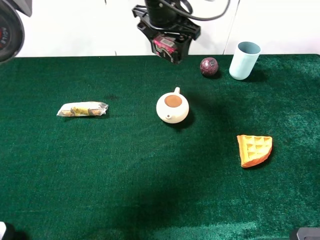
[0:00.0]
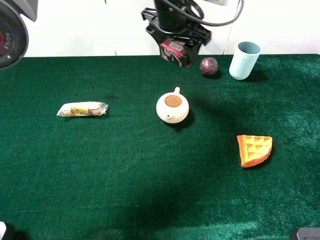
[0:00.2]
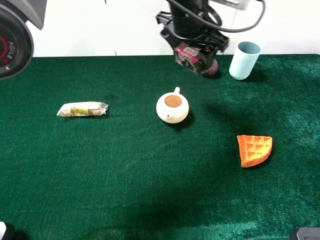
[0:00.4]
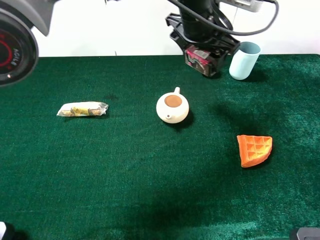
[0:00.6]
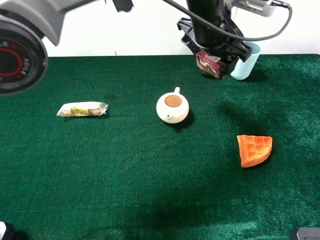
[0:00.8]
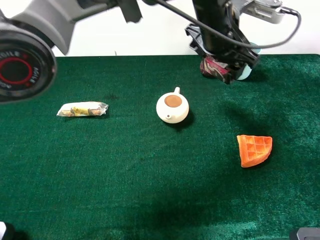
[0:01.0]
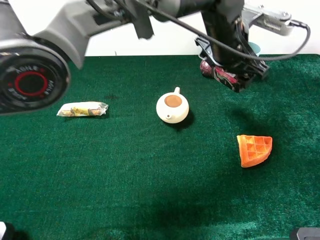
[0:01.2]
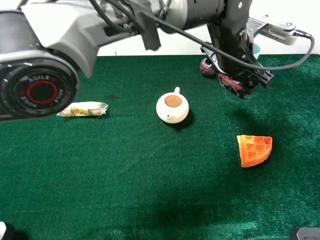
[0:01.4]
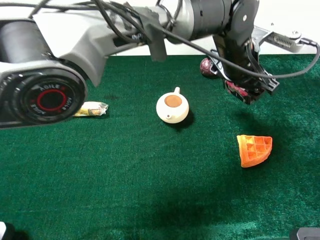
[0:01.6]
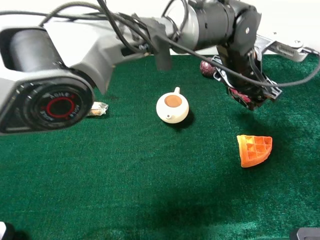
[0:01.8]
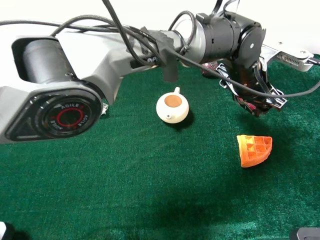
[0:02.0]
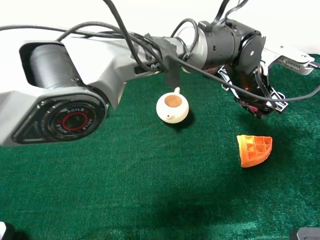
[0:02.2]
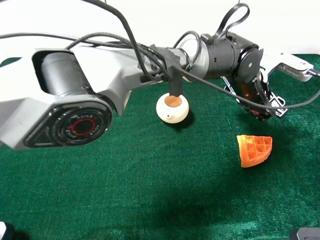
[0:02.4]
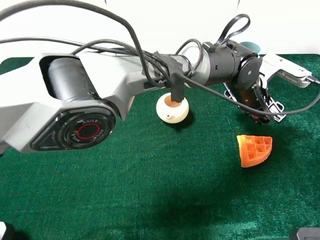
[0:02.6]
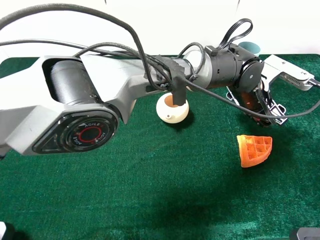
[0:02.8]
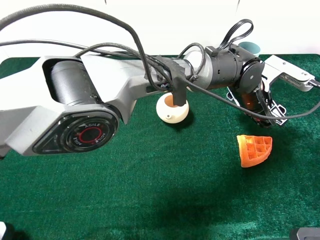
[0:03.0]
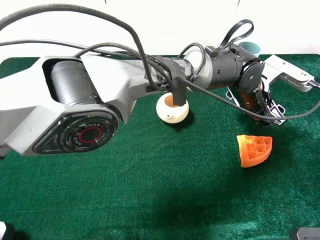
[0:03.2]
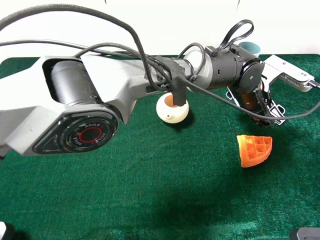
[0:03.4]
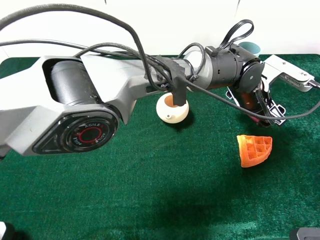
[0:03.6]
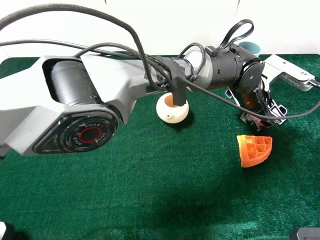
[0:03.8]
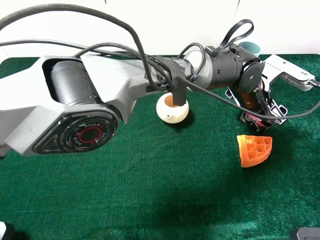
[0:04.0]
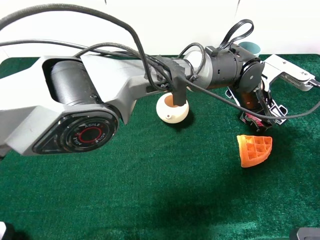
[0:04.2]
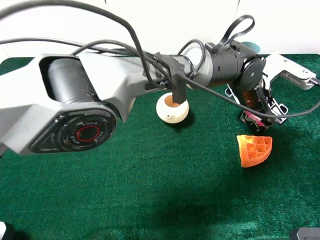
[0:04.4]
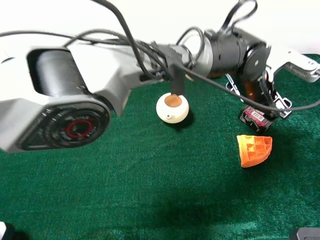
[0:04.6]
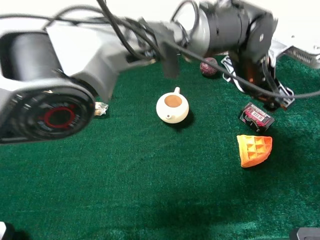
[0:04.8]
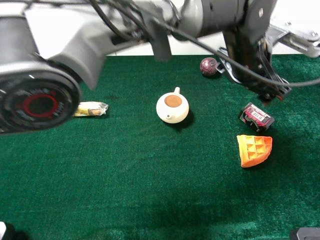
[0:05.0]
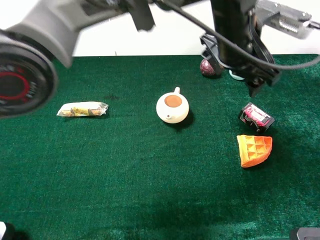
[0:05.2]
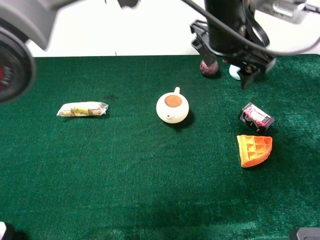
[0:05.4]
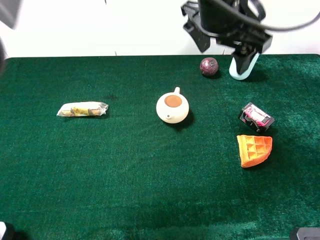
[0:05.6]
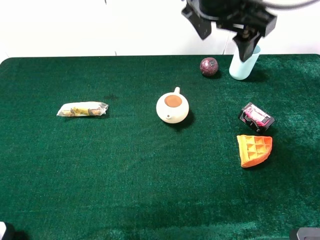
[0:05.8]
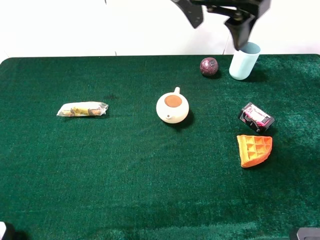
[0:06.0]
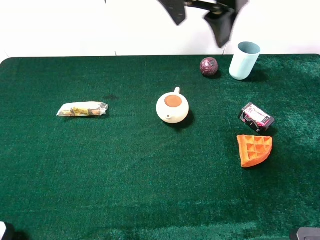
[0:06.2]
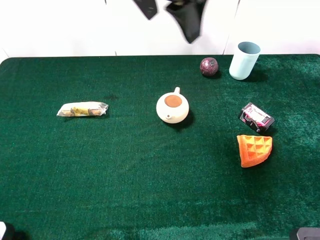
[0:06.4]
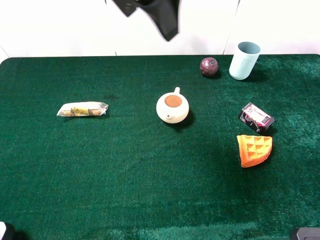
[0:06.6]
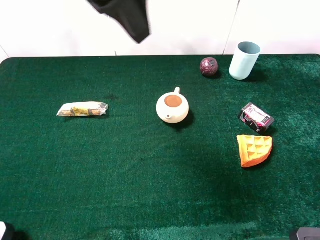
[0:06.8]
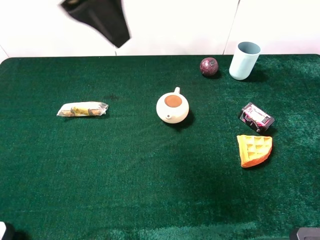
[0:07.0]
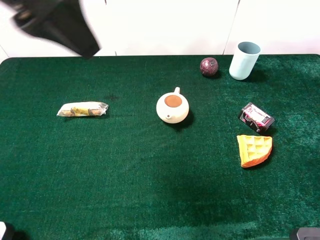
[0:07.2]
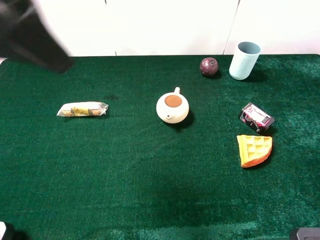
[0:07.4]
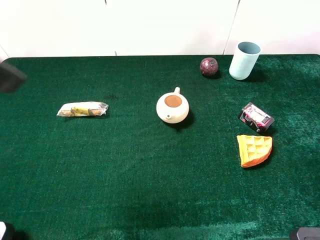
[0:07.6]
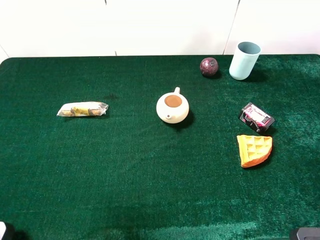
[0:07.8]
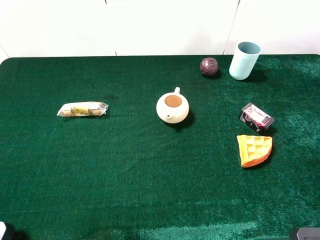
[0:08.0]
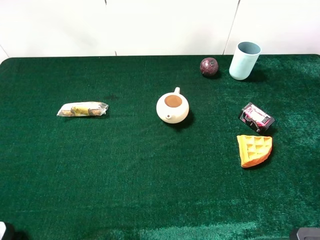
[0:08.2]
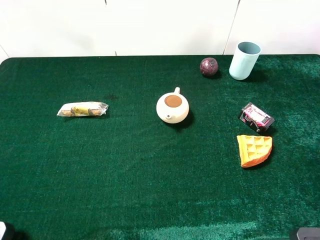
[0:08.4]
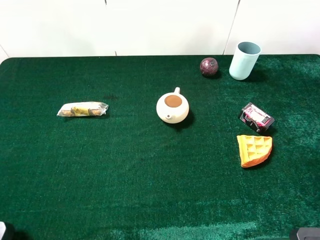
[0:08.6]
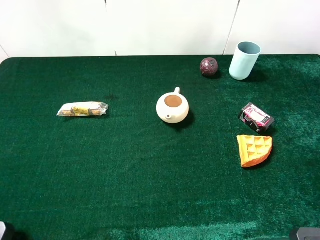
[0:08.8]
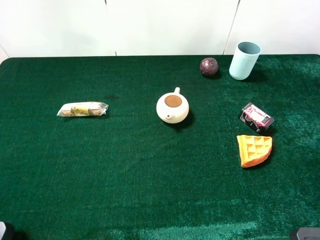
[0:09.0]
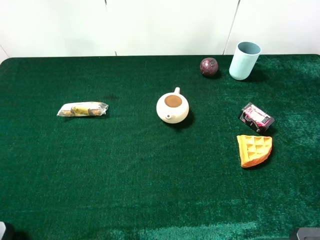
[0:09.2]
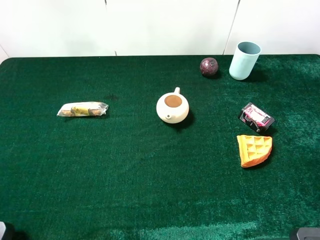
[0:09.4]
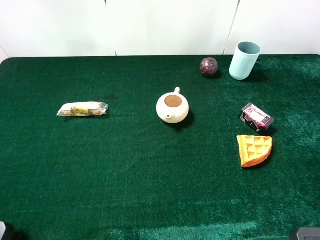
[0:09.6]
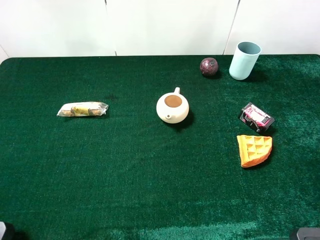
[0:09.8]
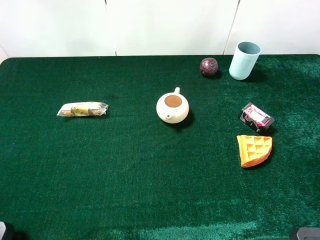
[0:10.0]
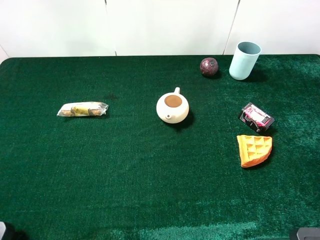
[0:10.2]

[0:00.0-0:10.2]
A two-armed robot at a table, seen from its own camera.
Task of the whole recording: the gripper move the object.
Step, 0:00.0 to 0:04.8: Place the hard facial cleanser on the table with the left gripper.
0:00.0 to 0:01.4: The left gripper is displaced to the right, backward and downward by some 15 cm.
0:01.4 to 0:03.0: The left gripper goes roughly 10 cm downward and to the right.
0:03.0 to 0:04.4: The left gripper opens.
0:04.4 to 0:05.8: The left gripper moves upward and to the left, about 20 cm.
0:05.8 to 0:07.2: The left gripper shifts approximately 25 cm to the left and backward.
0:07.2 to 0:08.8: The left gripper travels to the left and backward by some 25 cm.

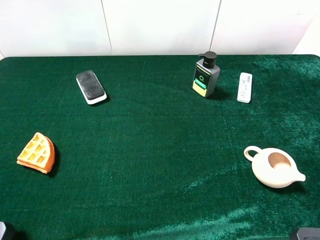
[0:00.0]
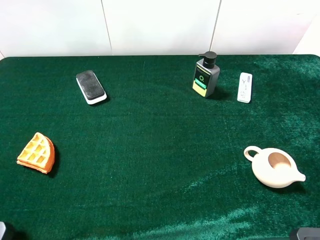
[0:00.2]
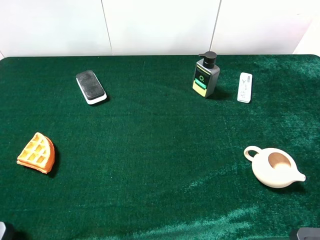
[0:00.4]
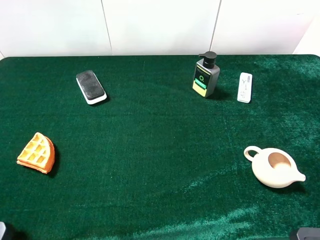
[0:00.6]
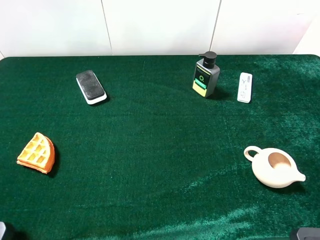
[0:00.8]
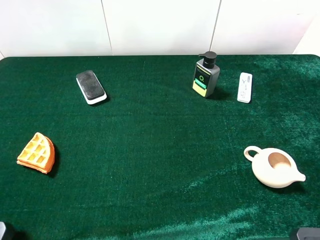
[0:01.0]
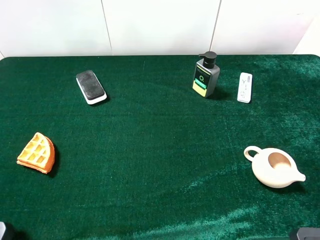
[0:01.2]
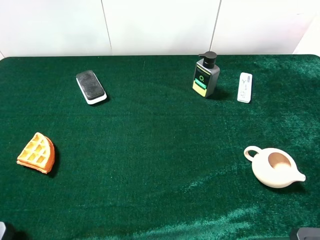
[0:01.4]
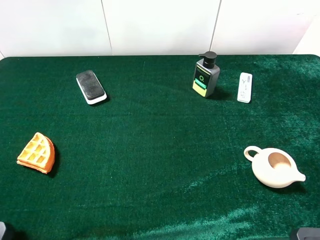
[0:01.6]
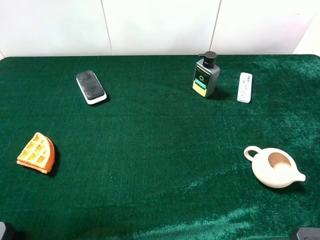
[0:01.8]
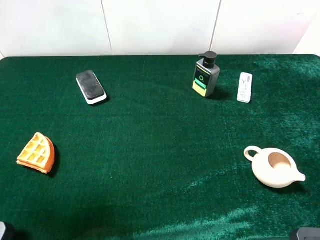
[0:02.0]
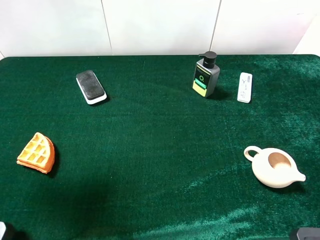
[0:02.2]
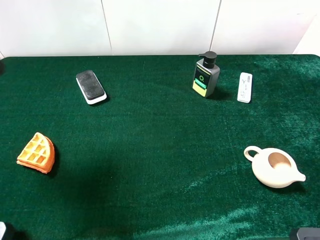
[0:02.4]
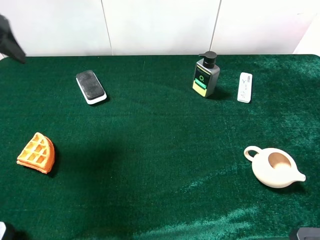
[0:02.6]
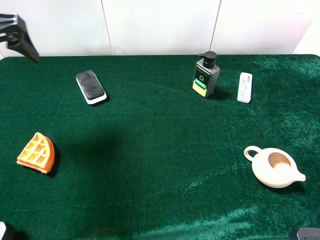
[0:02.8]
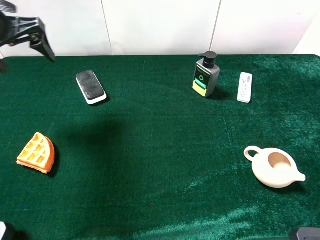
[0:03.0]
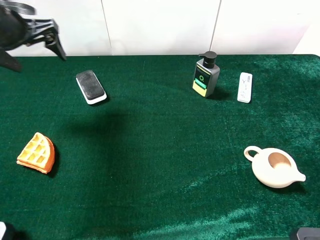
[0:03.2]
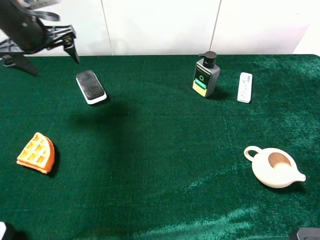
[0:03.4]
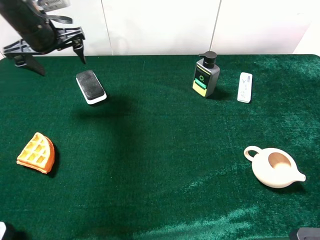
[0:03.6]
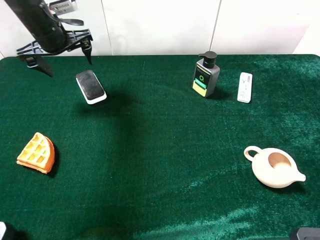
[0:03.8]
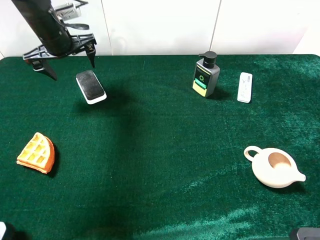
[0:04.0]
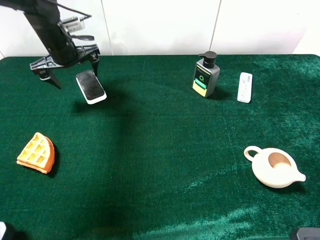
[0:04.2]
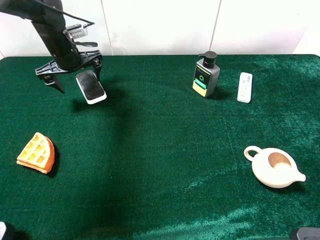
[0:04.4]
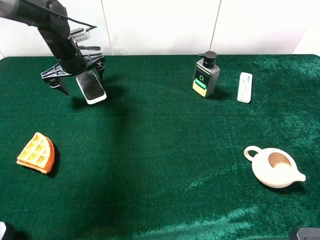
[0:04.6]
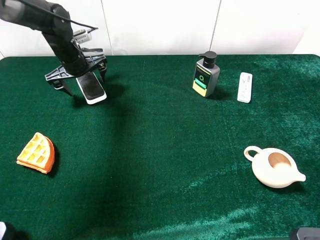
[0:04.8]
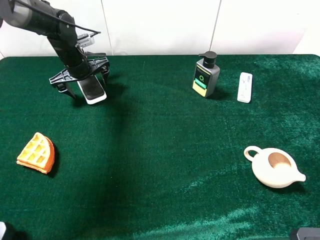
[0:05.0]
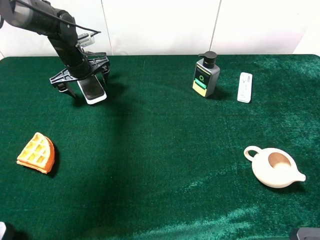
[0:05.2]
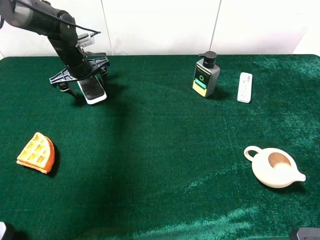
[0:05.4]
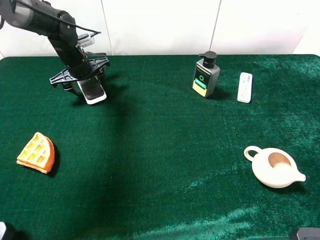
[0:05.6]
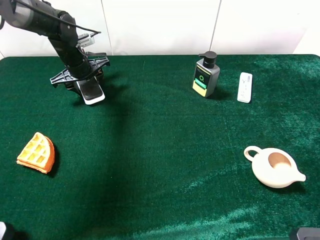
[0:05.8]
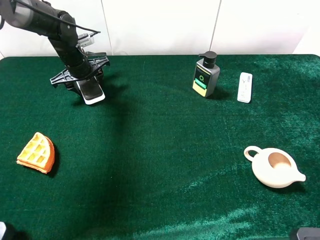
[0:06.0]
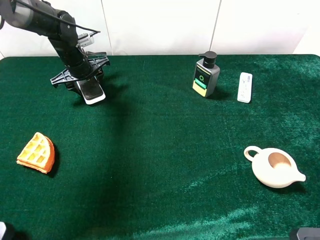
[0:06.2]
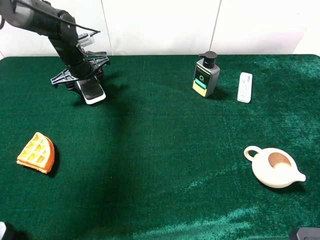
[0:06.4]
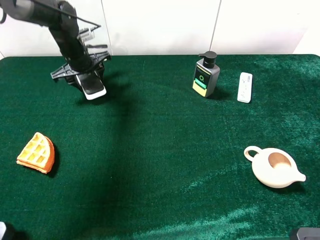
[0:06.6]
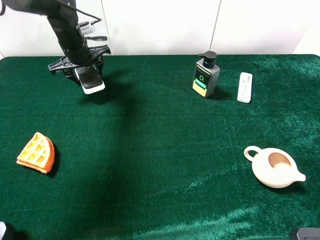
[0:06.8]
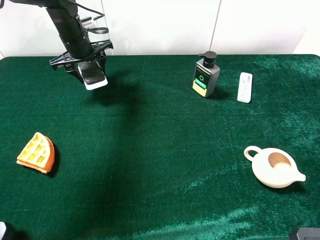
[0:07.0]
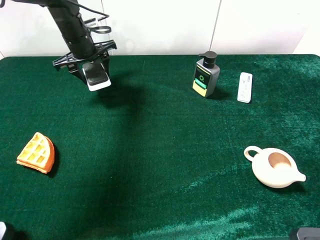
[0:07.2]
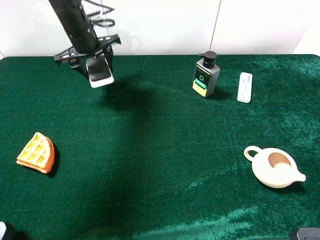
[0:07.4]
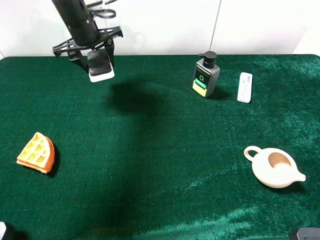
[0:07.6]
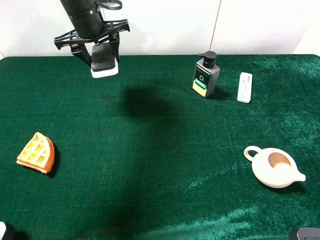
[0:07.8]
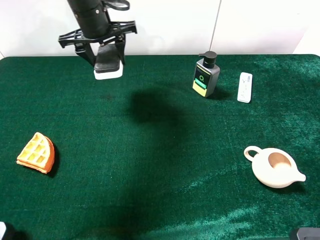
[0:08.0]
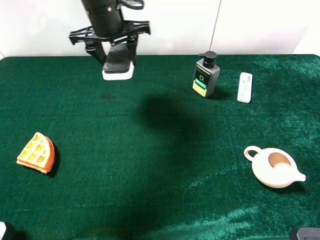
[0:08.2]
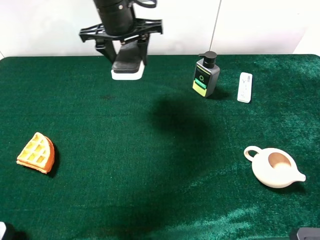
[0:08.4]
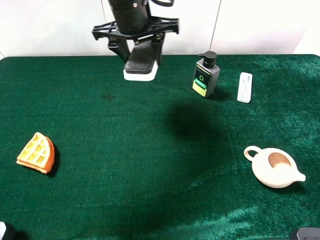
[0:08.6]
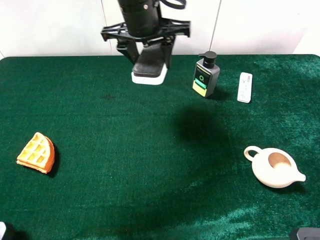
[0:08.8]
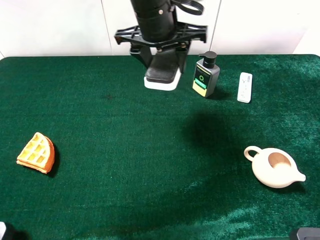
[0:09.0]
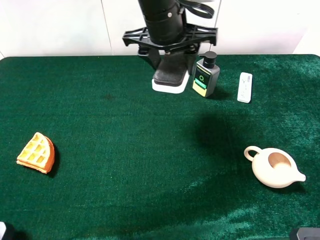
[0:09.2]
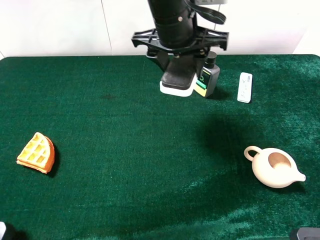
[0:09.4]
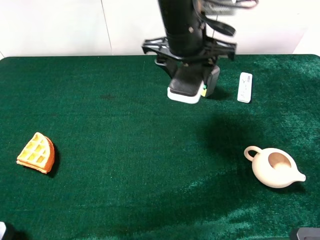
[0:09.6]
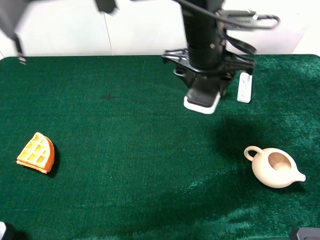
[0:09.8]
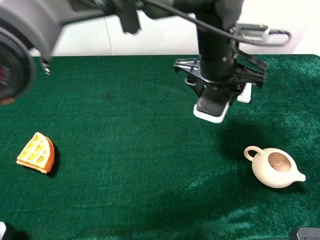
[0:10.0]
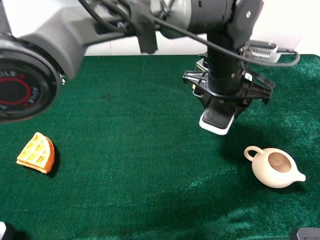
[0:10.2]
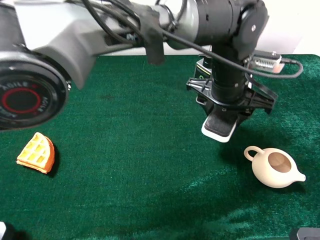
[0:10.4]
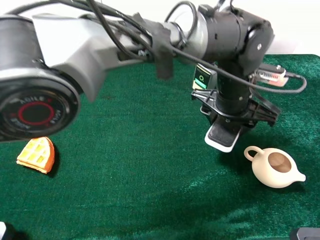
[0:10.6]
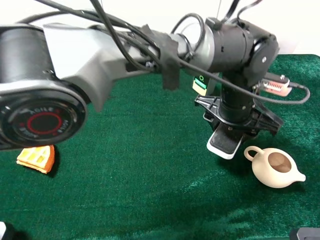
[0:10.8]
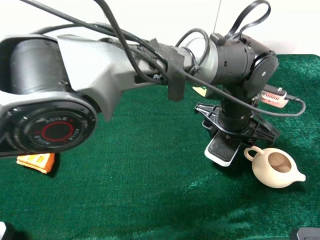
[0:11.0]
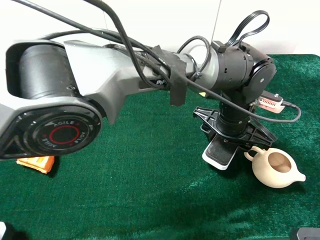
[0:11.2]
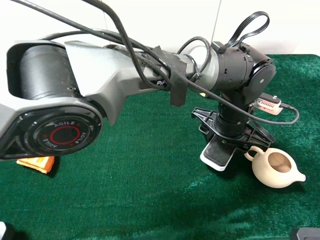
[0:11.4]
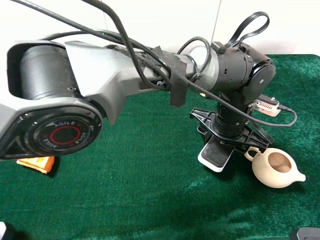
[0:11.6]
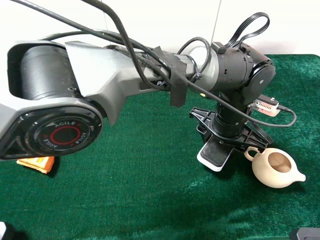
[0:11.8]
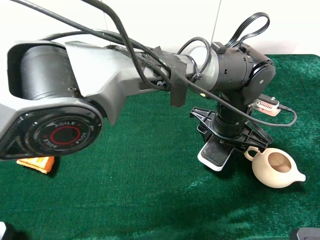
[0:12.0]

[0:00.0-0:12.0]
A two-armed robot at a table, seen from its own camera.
Task of the whole recording: the gripper move the object.
Step, 0:00.0 to 0:06.0: Grasp the white blackboard earser with the left gripper.
0:01.6 to 0:03.0: The left gripper heads forward, covering about 25 cm.
0:03.0 to 0:04.4: The left gripper travels downward, forward and to the right by roughly 20 cm.
0:04.4 to 0:06.0: The left gripper closes its fingers.
0:06.0 to 0:07.6: The left gripper heads upward, covering approximately 10 cm.
0:07.6 to 0:09.0: The left gripper heads to the right and backward, covering roughly 20 cm.
0:09.0 to 0:10.4: The left gripper heads to the right and downward, covering roughly 15 cm.
0:10.4 to 0:12.0: The left gripper heads downward, covering roughly 5 cm.
